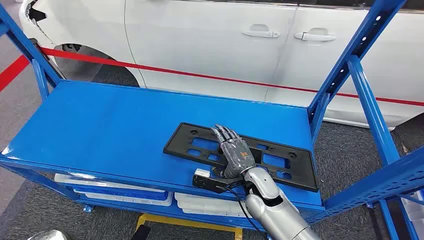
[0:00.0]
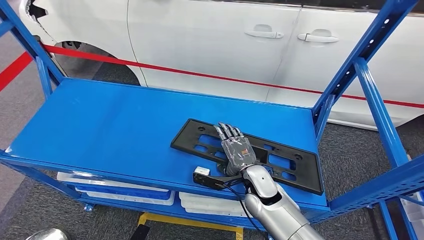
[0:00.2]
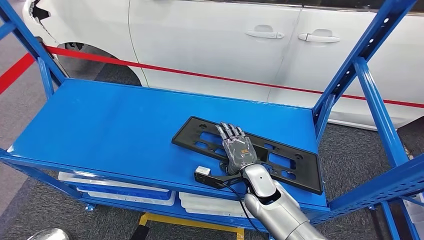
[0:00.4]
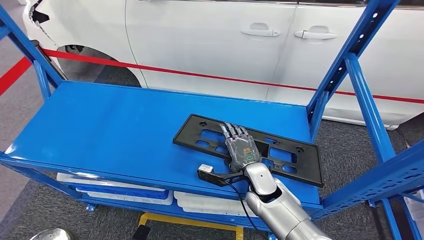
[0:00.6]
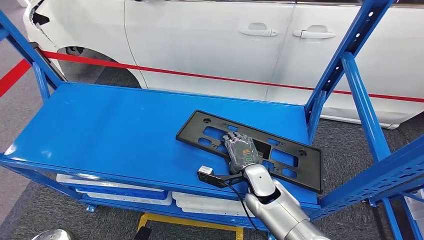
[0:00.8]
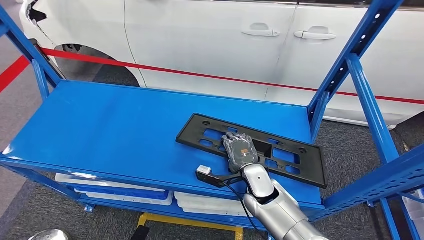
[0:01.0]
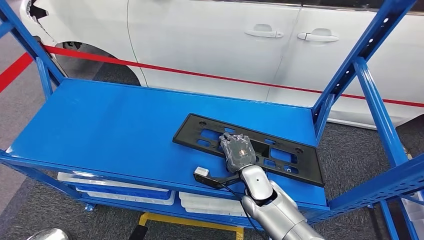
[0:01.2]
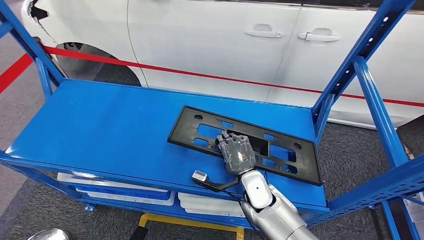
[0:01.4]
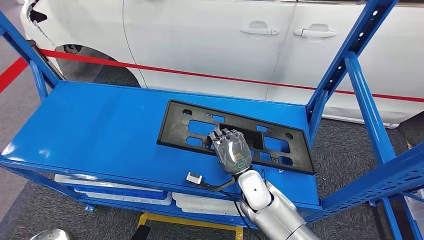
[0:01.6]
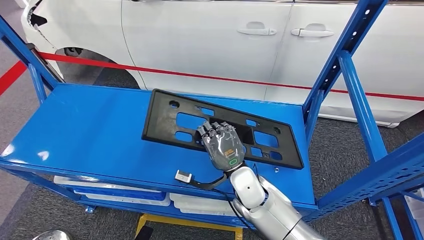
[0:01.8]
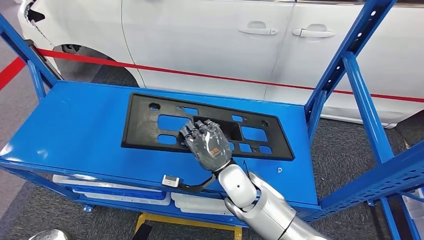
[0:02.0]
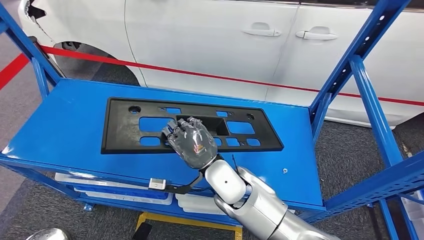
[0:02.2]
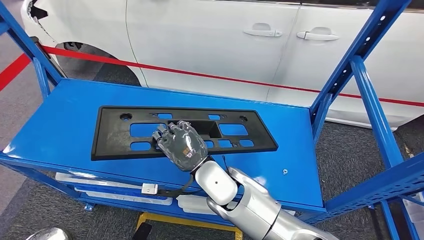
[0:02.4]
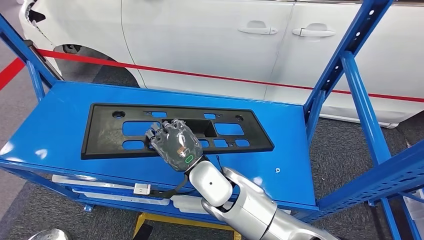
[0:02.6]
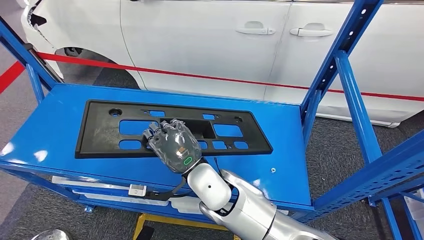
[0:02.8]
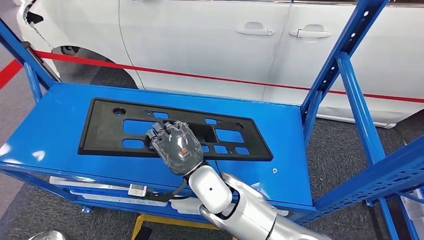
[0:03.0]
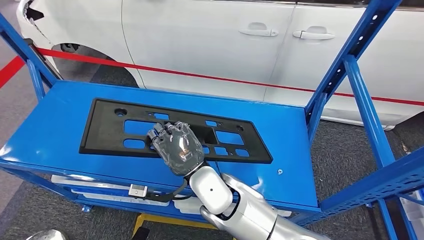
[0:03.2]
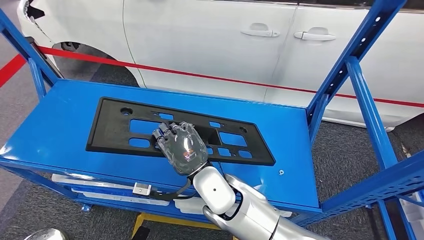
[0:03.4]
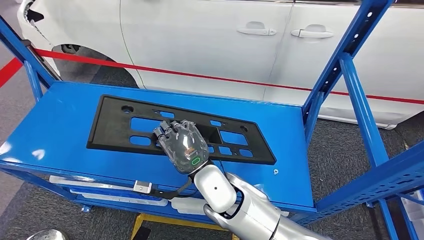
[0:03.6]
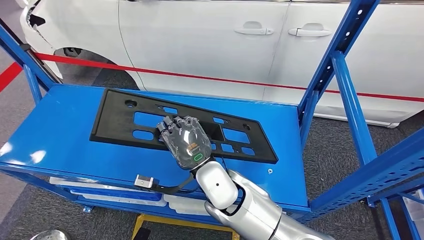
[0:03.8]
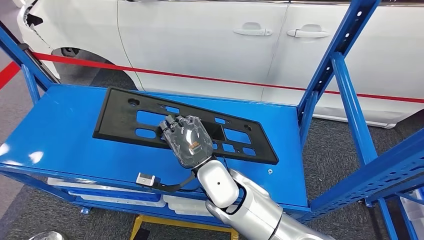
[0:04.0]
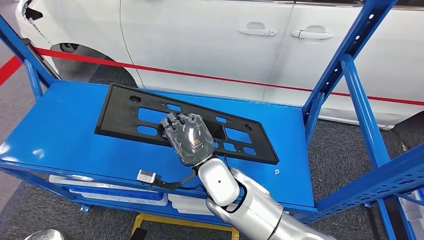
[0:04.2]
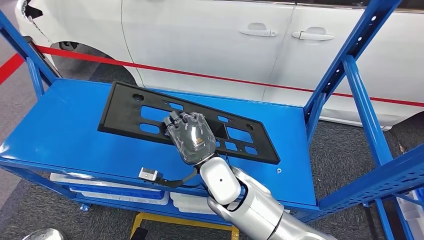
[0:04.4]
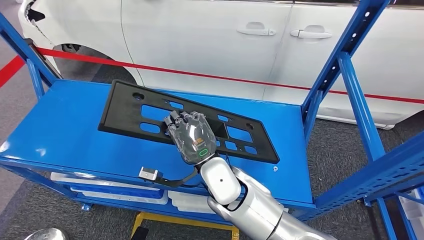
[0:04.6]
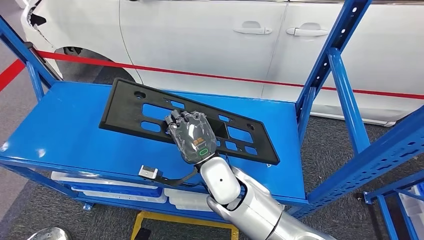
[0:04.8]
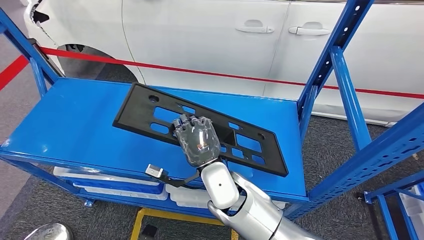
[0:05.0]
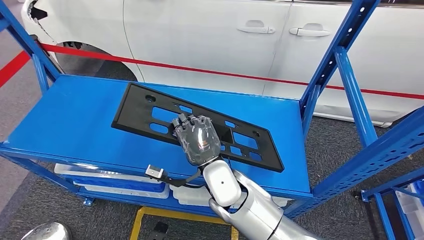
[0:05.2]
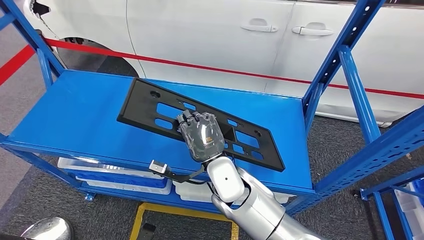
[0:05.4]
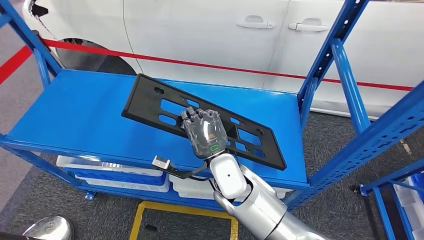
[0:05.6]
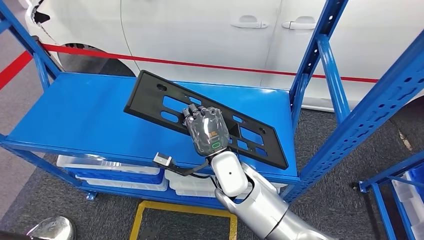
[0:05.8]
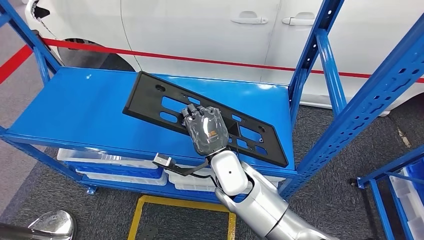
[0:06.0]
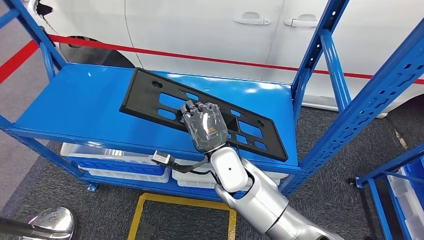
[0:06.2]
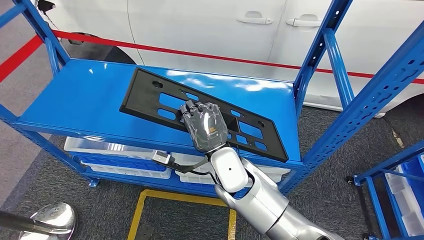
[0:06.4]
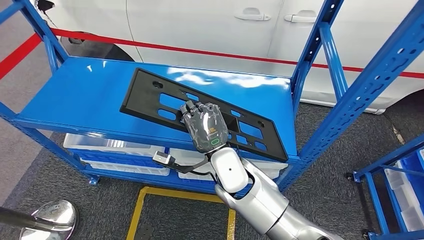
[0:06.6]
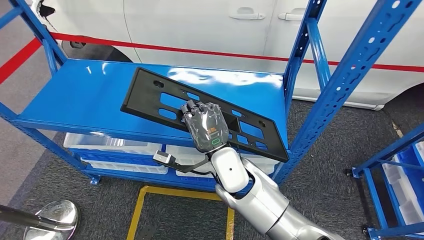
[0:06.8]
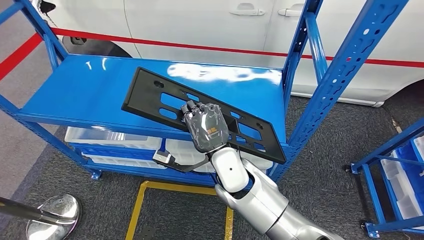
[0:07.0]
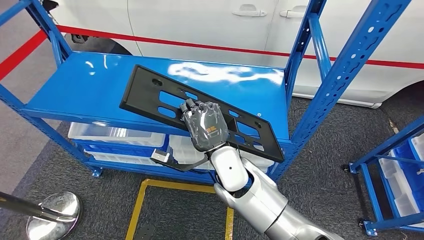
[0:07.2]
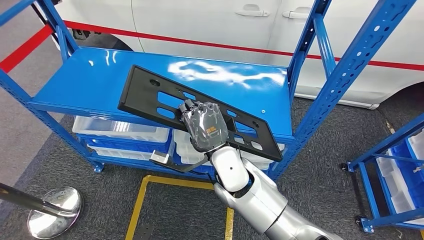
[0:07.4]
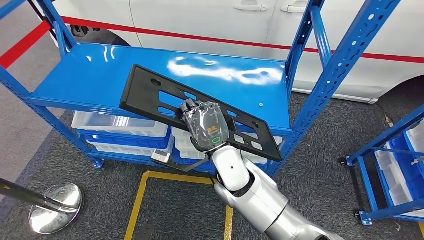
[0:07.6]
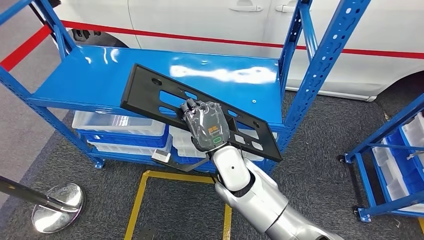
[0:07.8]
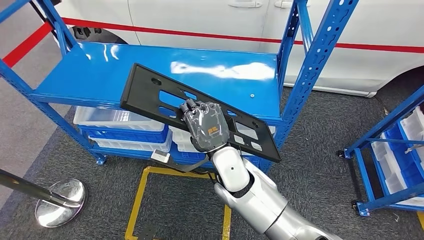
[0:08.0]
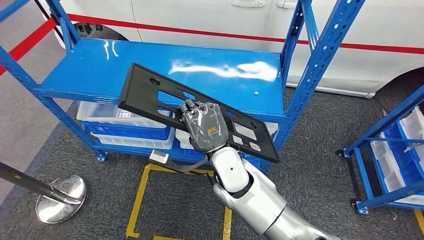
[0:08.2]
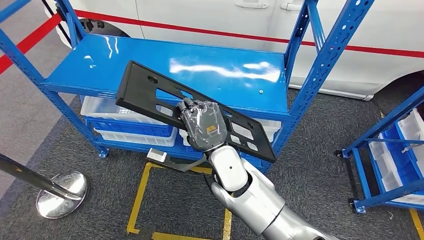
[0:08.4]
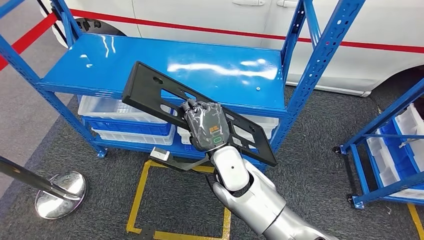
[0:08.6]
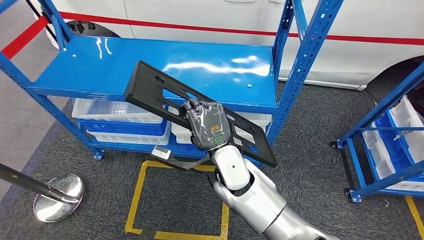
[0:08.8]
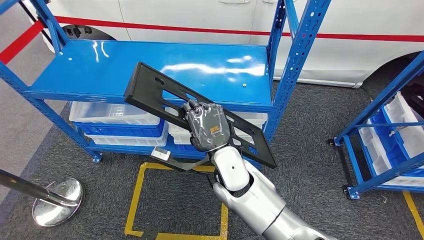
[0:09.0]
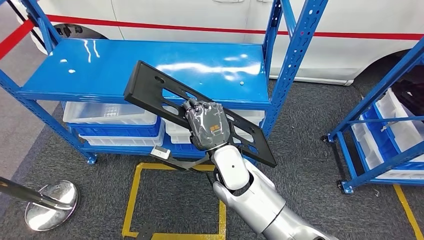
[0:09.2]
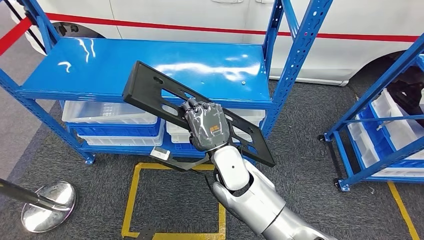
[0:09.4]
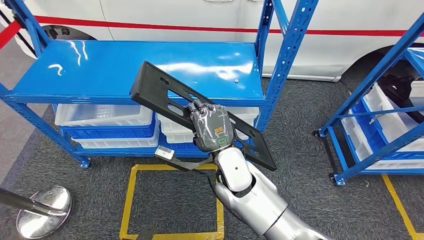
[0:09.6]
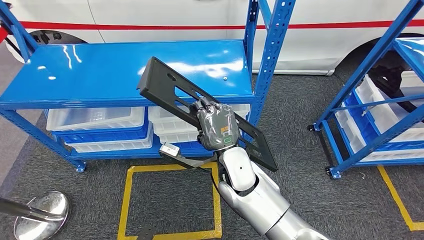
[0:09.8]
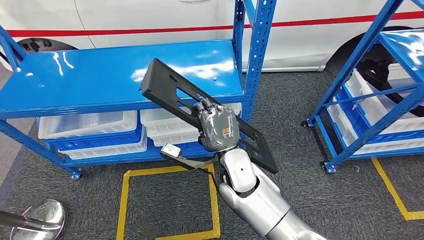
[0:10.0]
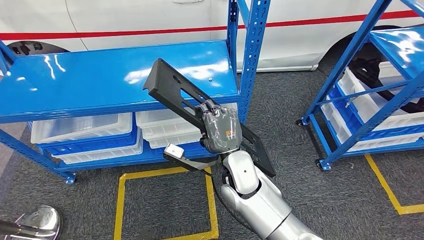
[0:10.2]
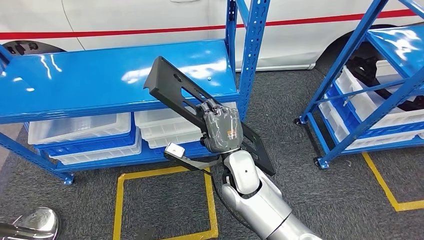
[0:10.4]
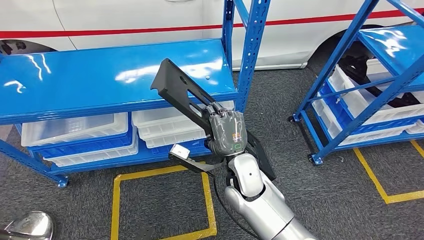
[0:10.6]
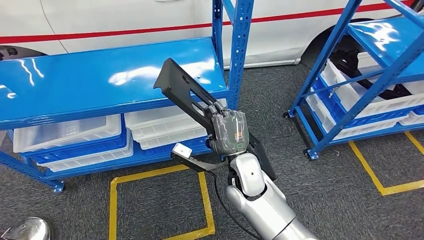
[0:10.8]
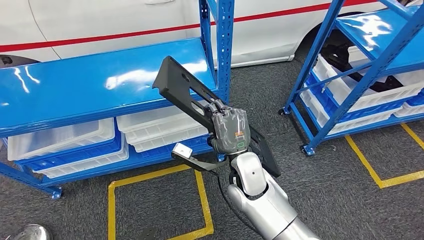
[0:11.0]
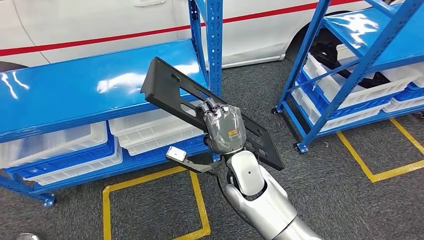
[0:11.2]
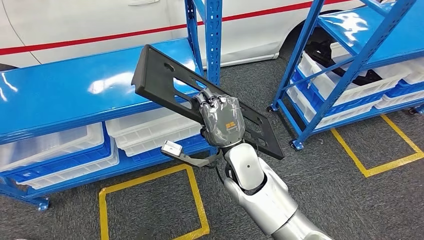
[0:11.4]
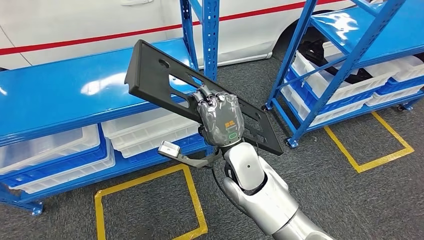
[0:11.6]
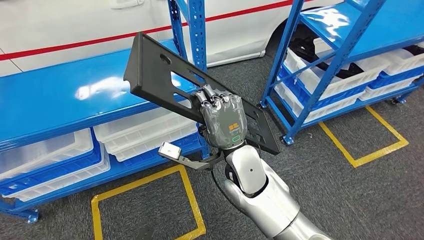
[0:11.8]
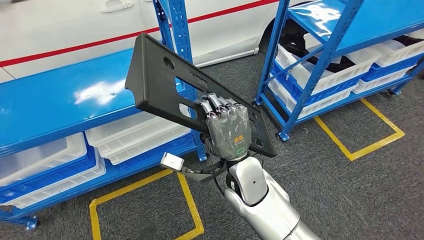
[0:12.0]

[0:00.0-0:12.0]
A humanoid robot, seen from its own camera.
Step, 0:00.0 to 0:08.0: Pick up the large material from the shelf.

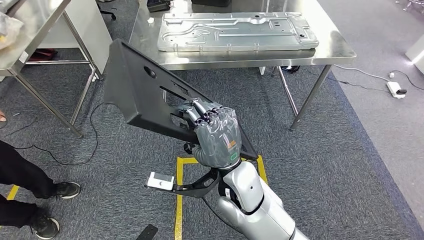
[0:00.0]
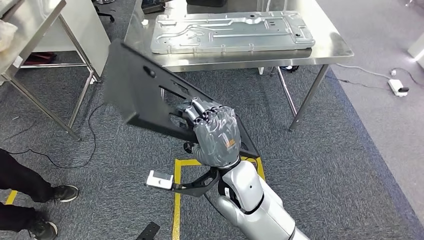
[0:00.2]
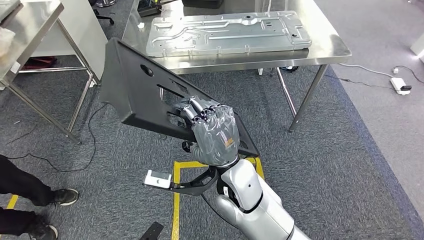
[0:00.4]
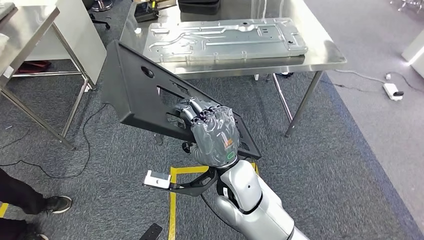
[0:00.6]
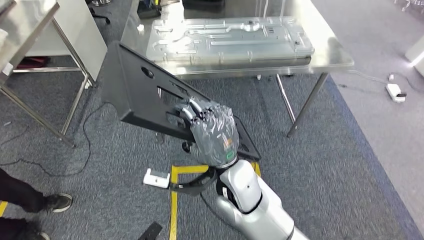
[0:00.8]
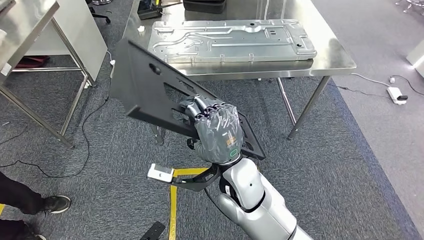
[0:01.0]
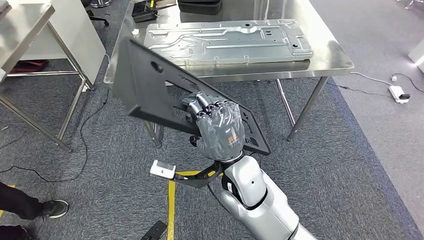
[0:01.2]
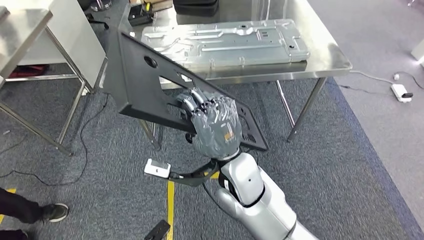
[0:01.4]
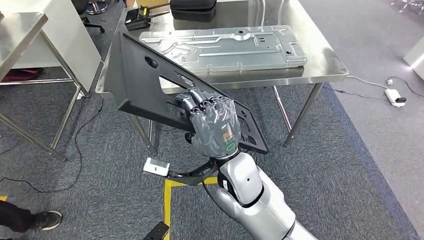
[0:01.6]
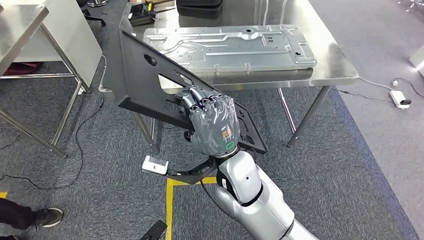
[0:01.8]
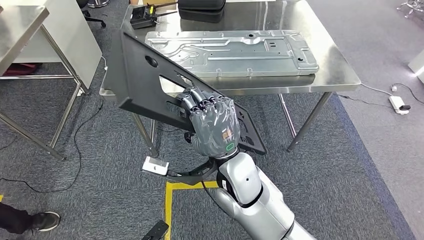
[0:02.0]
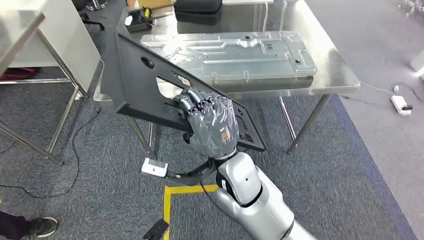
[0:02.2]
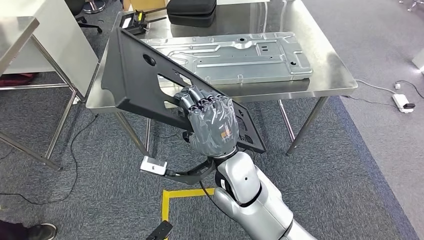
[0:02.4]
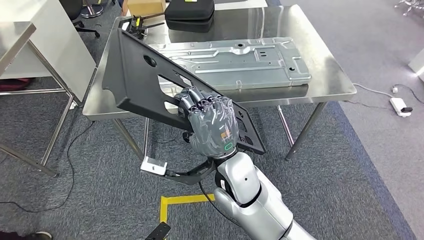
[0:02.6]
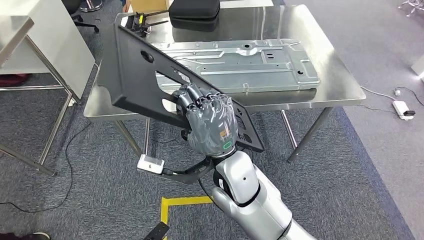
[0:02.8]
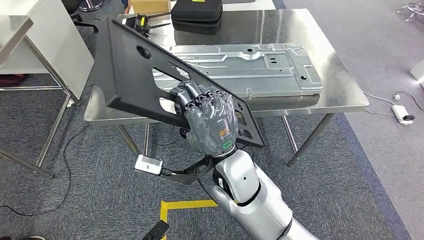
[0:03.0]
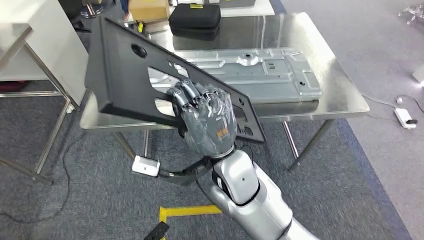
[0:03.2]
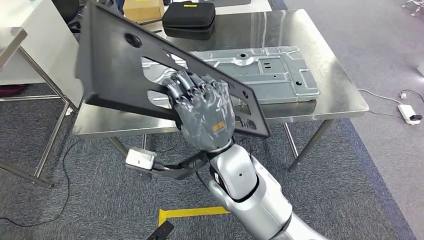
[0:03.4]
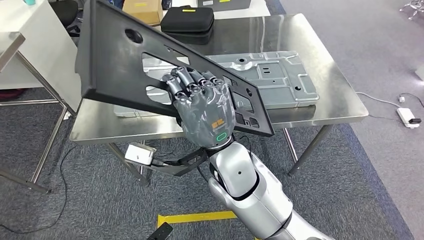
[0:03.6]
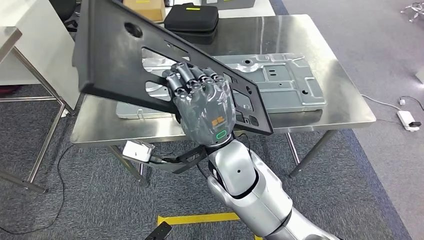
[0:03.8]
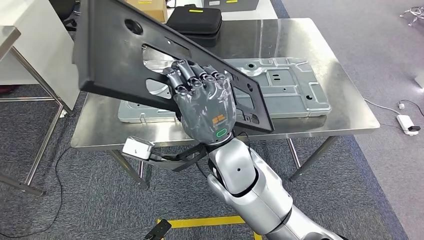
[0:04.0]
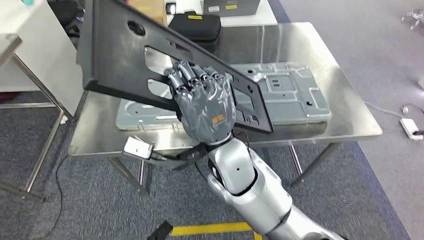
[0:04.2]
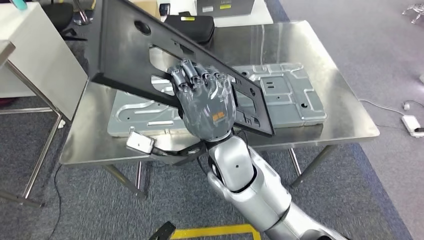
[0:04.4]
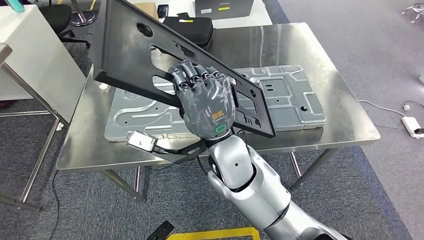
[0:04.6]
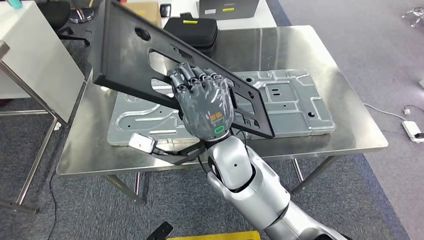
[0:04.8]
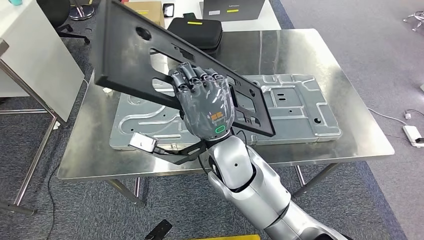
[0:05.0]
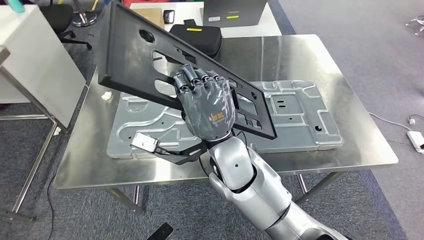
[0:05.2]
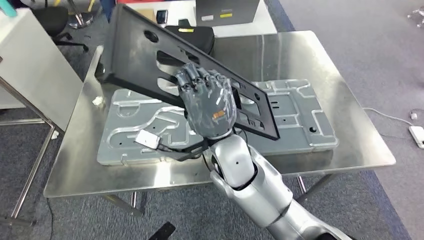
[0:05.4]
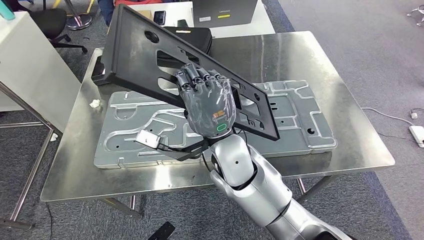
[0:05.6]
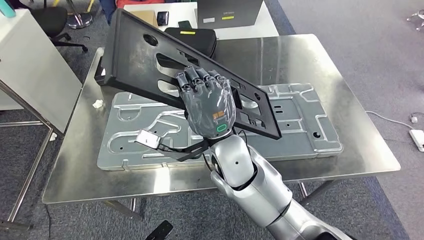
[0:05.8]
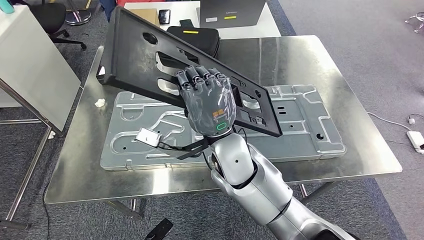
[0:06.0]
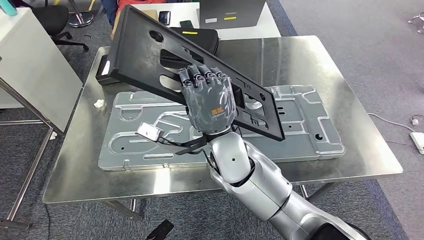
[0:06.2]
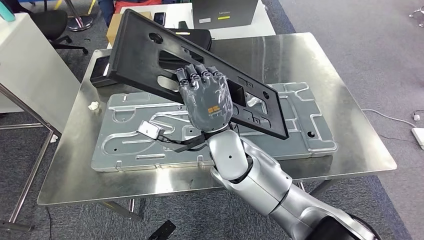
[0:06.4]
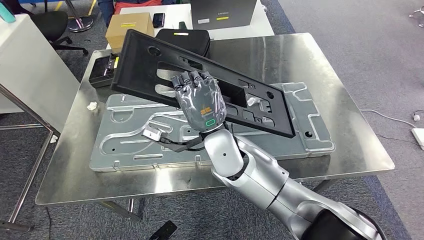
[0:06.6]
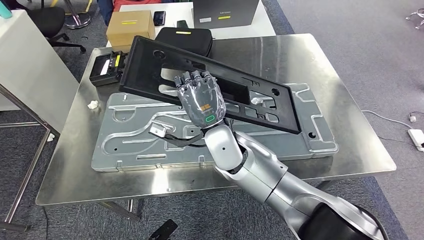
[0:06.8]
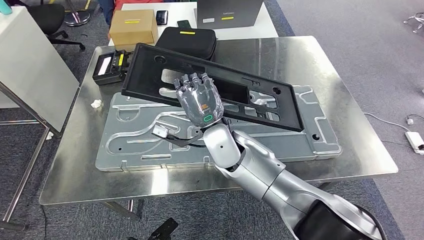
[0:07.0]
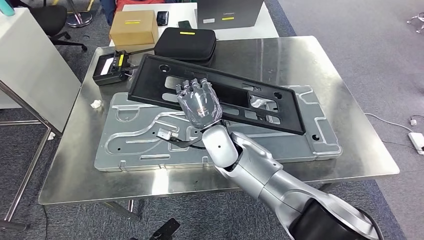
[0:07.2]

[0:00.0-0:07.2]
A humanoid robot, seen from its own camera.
Step, 0:00.0 to 0:02.6: Move the large material to the workbench.
